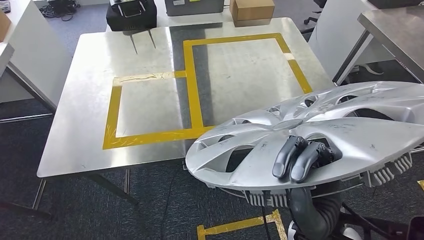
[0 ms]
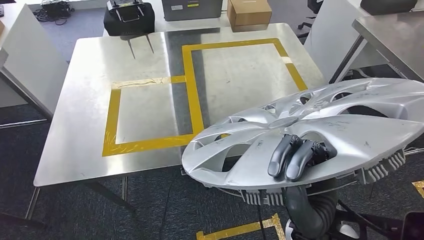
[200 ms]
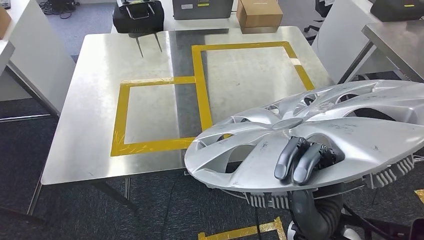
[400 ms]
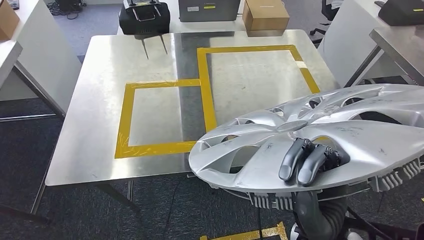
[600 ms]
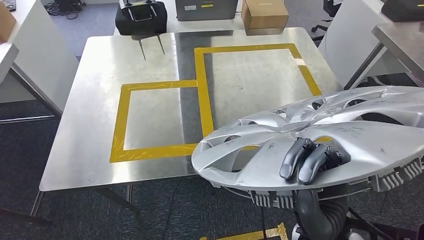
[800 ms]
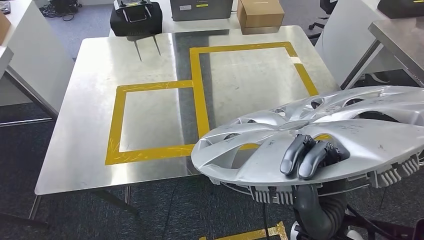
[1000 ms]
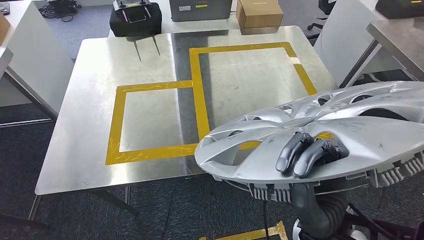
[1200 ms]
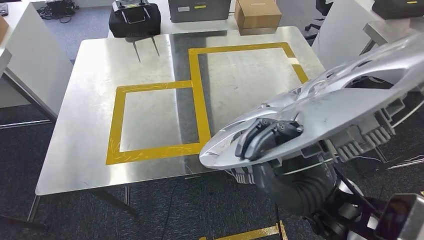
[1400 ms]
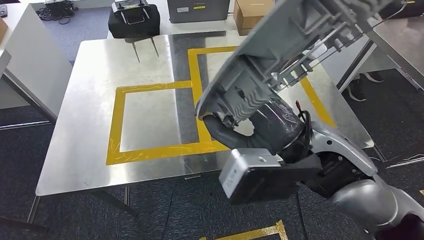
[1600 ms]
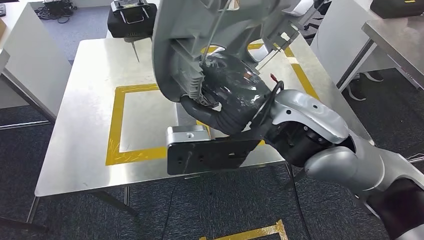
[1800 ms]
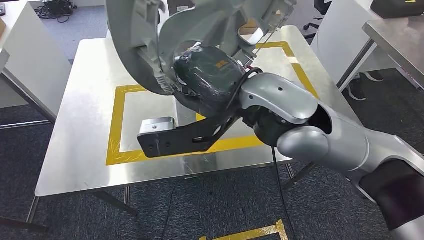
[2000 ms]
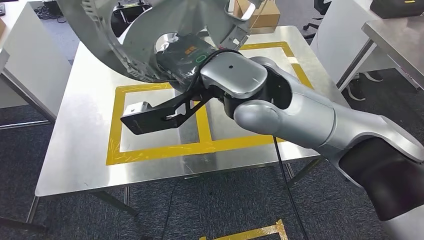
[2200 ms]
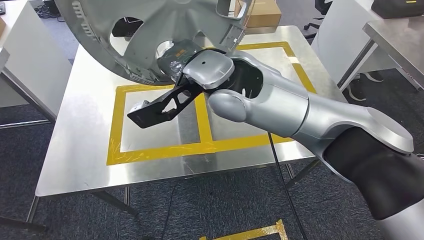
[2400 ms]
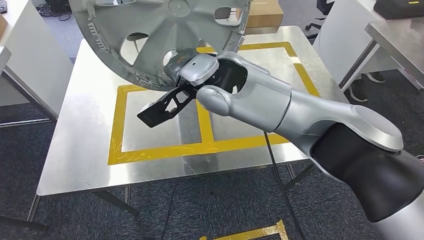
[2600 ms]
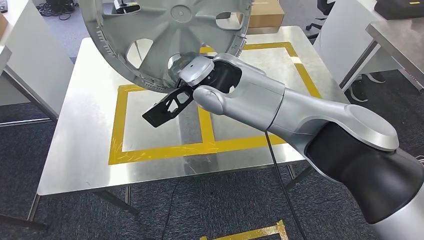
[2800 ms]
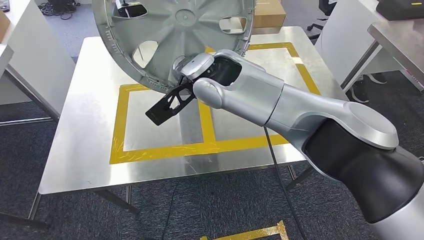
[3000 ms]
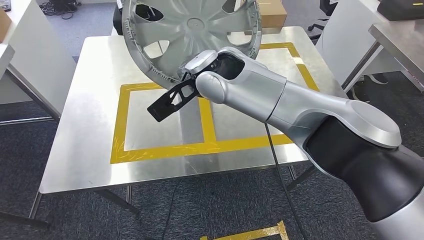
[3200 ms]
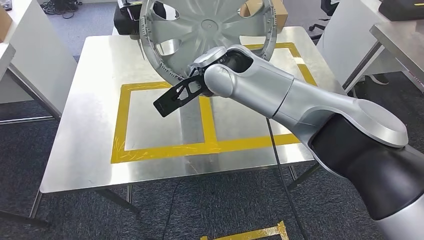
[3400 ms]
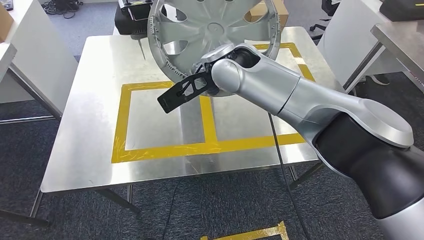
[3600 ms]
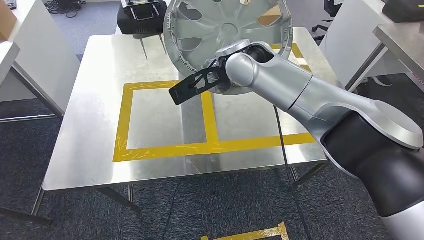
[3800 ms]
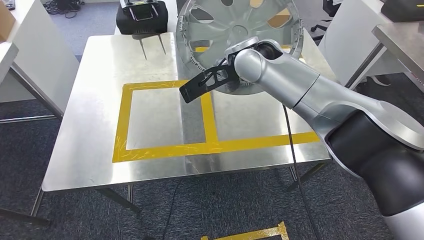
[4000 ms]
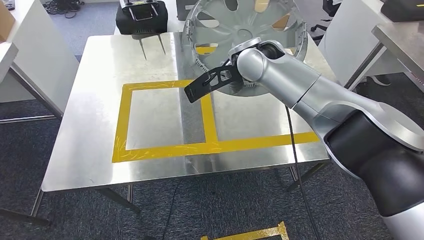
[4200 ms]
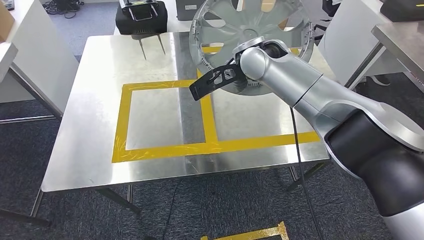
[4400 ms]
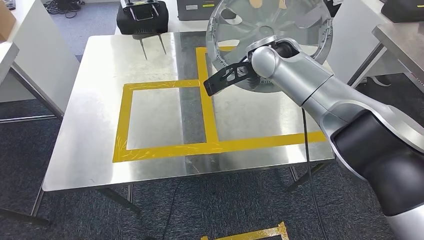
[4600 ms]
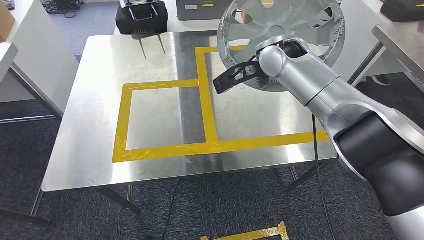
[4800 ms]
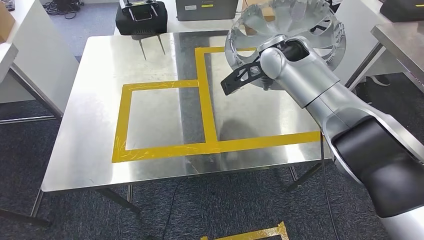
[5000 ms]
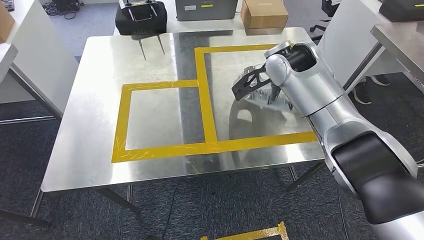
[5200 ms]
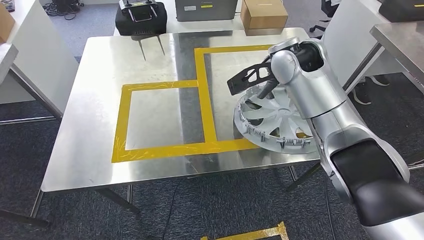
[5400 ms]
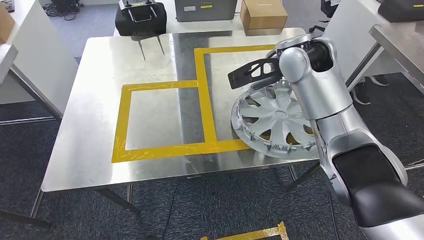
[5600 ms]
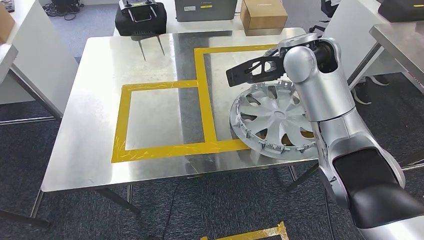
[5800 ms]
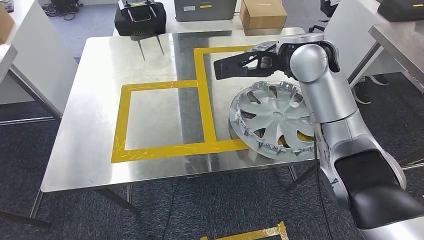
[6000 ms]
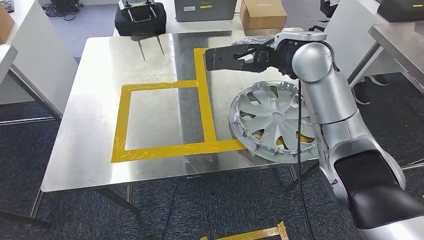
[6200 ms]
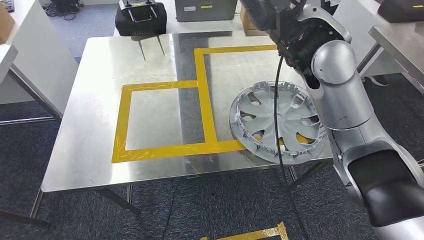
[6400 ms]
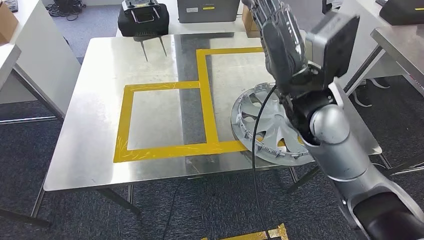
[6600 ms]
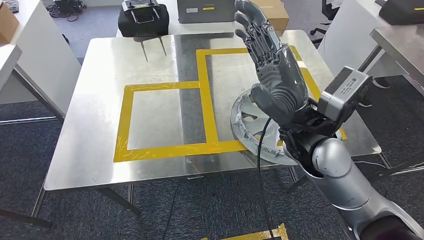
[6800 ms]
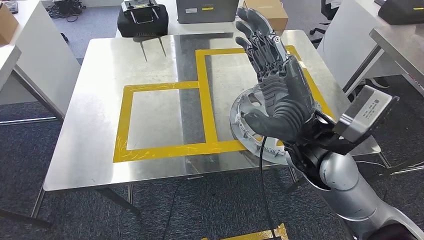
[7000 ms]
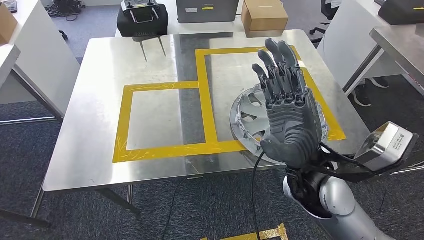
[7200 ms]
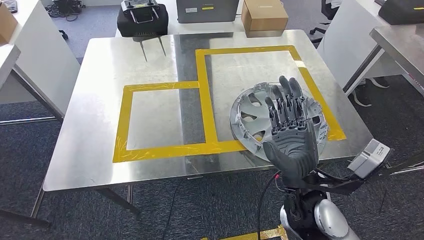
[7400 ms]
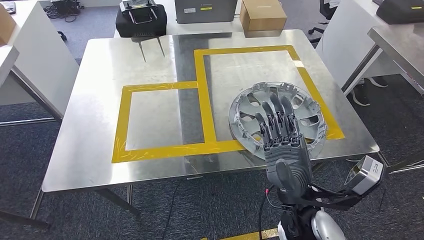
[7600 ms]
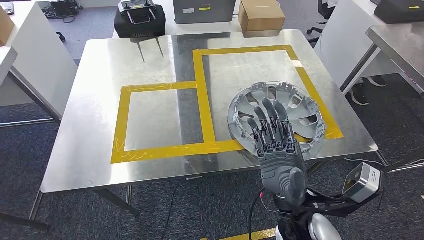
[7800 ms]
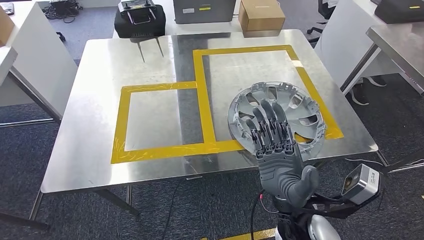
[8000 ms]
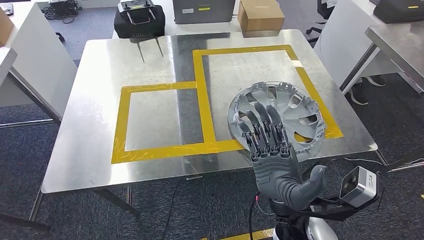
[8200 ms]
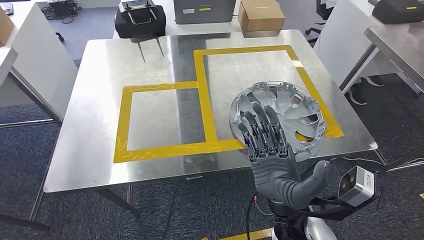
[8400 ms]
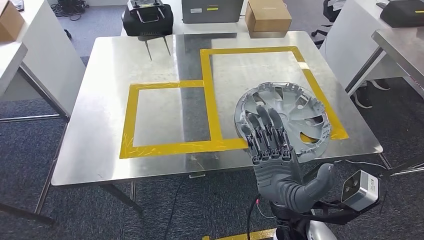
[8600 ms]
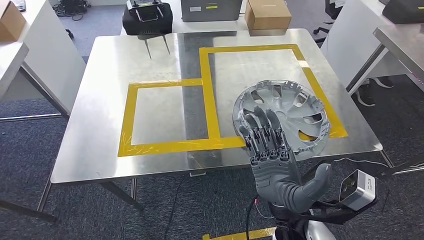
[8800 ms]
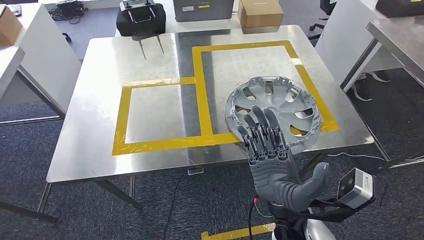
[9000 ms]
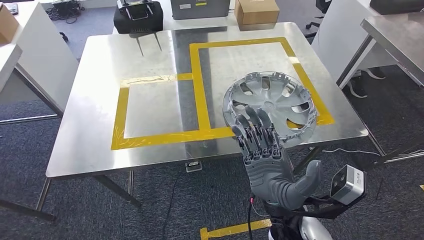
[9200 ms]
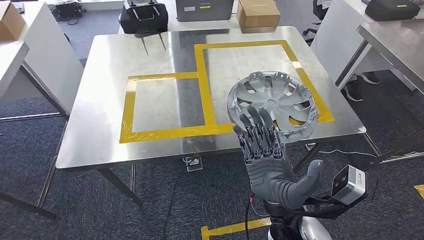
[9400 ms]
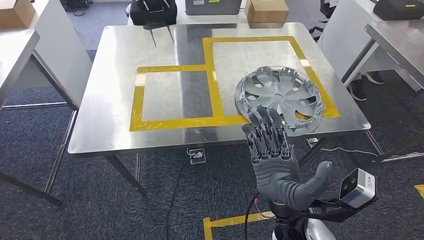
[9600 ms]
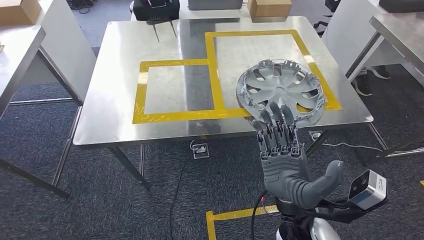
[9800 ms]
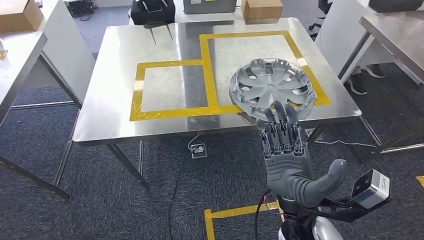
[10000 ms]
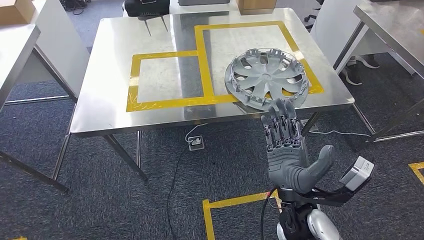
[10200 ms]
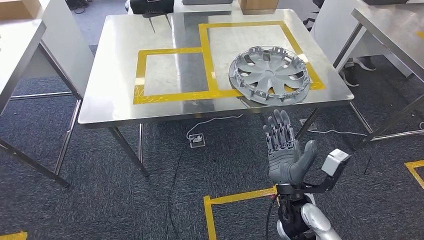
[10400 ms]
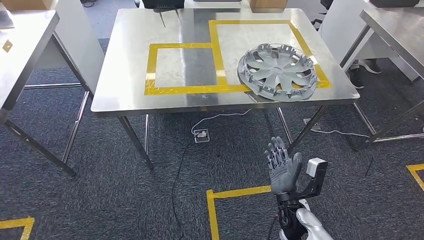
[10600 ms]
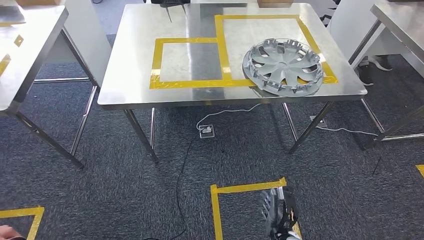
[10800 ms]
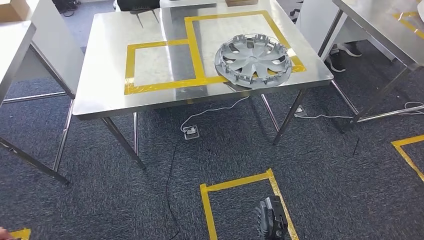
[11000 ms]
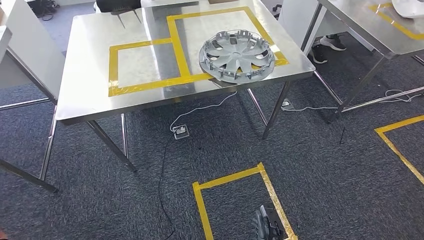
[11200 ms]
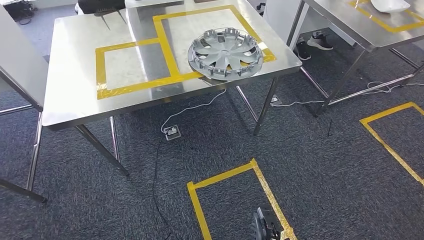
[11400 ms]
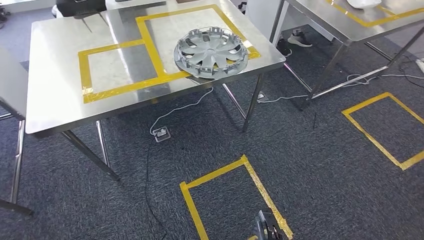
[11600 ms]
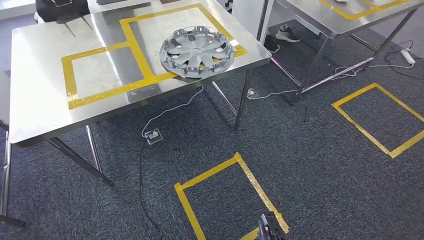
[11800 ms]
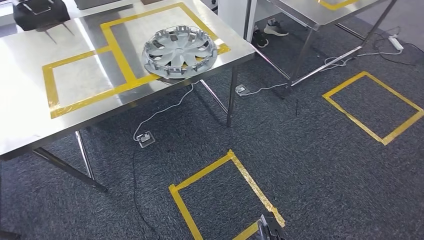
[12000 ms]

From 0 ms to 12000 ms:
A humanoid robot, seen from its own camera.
Step, from 0 ms to 8600 ms: Insert the small parts into the corresponding holes on the workbench.

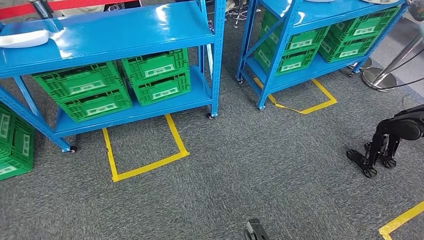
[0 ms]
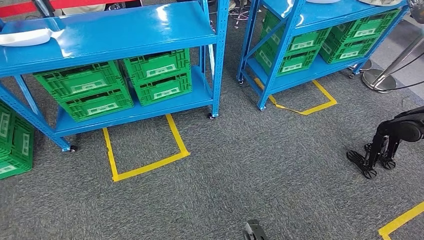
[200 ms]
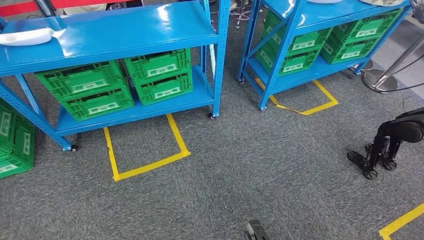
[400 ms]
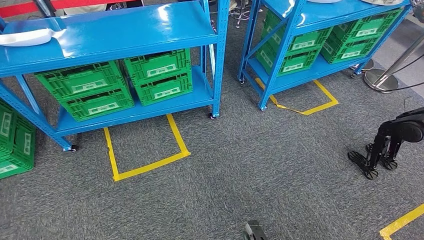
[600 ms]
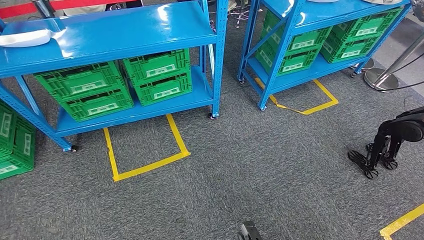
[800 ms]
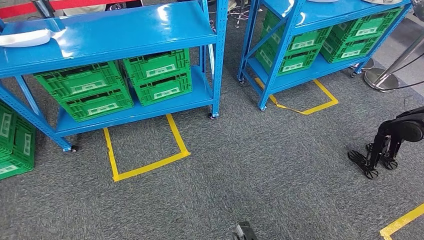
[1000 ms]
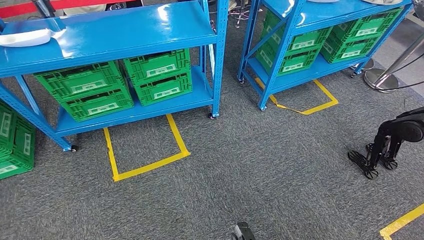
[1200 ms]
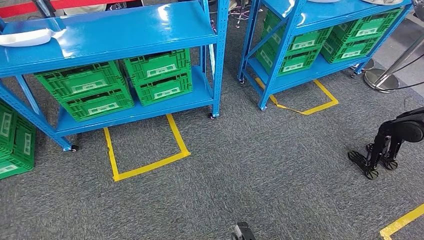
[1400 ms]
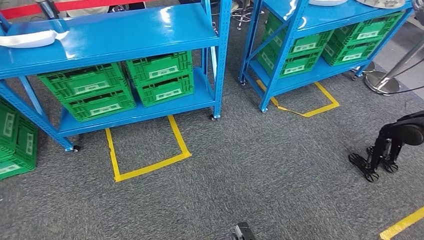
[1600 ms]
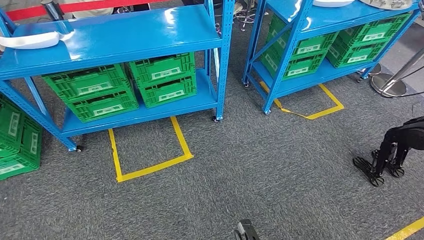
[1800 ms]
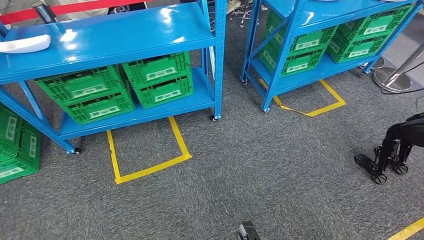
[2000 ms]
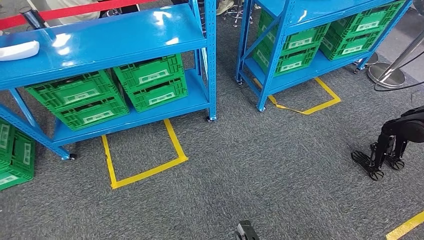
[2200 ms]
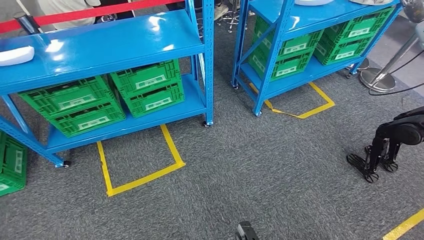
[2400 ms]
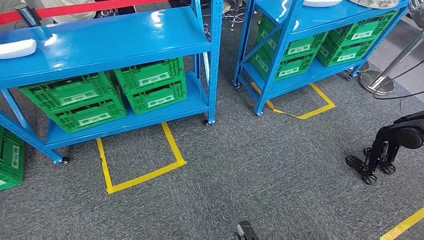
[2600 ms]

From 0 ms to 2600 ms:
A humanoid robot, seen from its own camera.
Step, from 0 ms to 2600 ms: Move to the initial position of the workbench.
From 0 ms to 1200 ms: The left hand shifts roughly 5 cm to the left.
